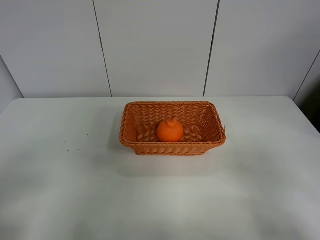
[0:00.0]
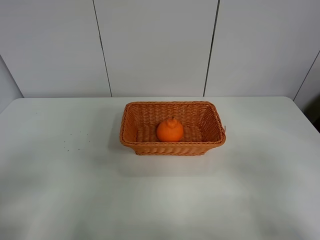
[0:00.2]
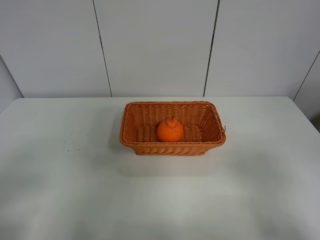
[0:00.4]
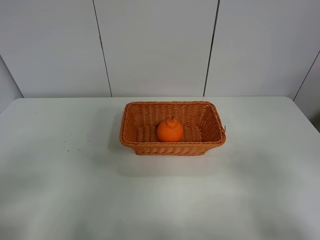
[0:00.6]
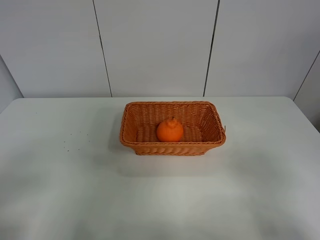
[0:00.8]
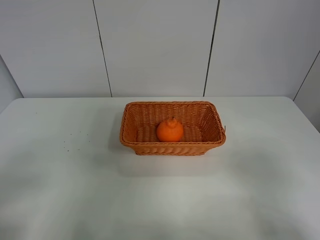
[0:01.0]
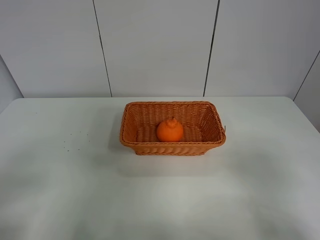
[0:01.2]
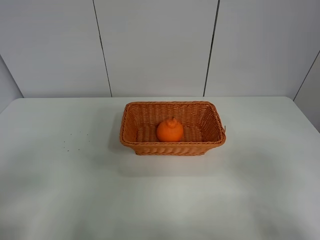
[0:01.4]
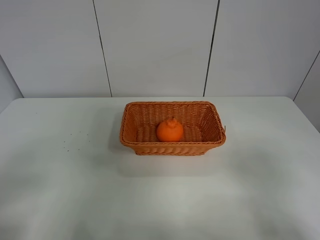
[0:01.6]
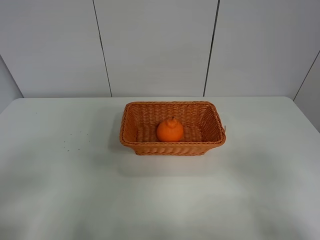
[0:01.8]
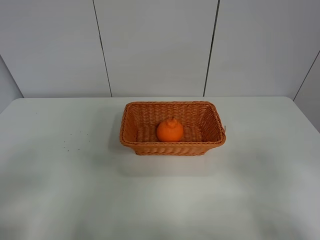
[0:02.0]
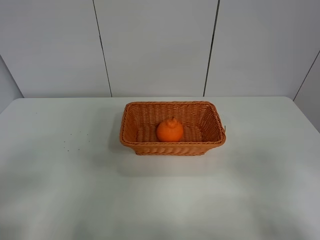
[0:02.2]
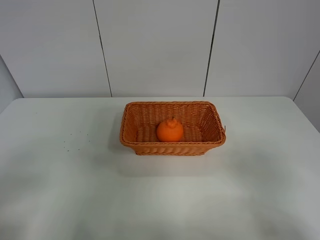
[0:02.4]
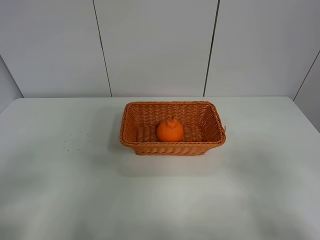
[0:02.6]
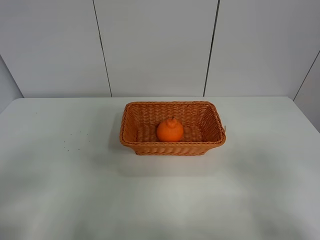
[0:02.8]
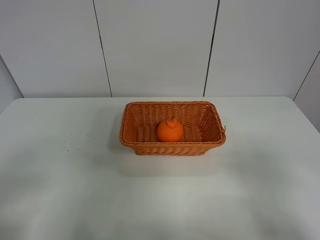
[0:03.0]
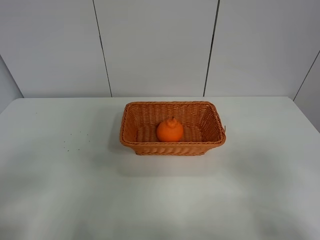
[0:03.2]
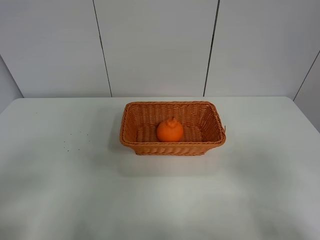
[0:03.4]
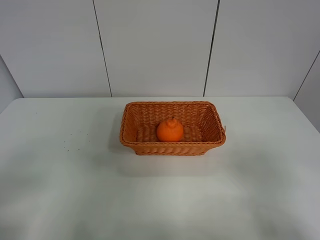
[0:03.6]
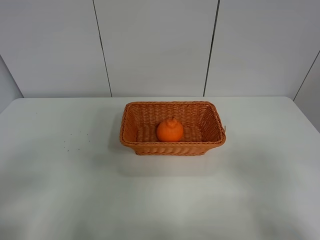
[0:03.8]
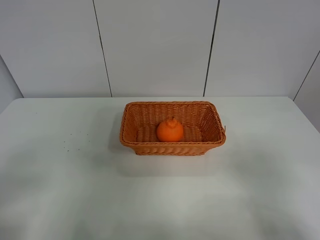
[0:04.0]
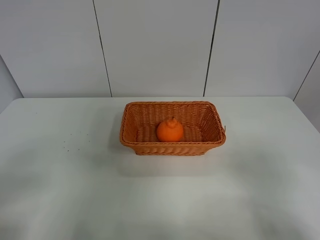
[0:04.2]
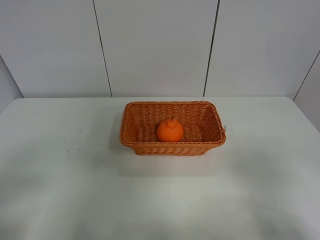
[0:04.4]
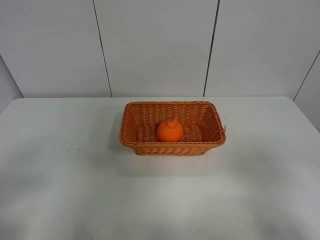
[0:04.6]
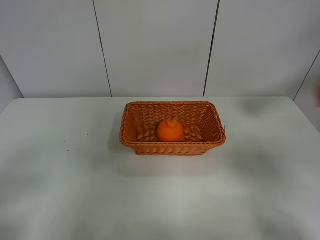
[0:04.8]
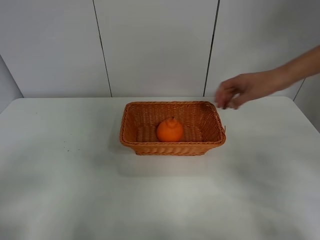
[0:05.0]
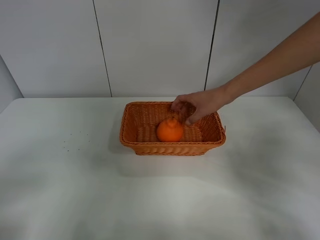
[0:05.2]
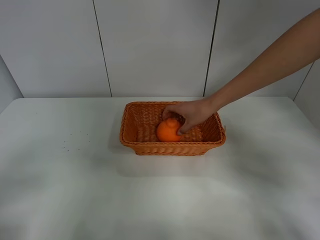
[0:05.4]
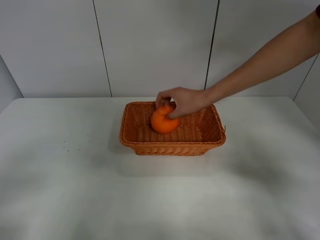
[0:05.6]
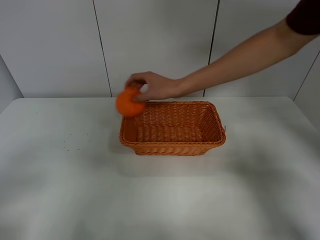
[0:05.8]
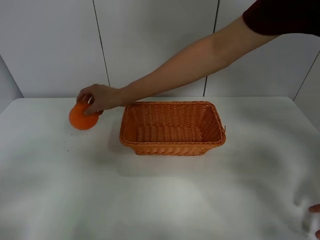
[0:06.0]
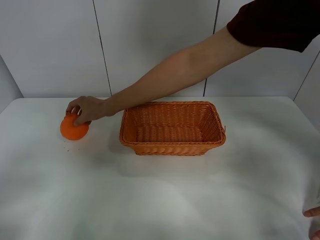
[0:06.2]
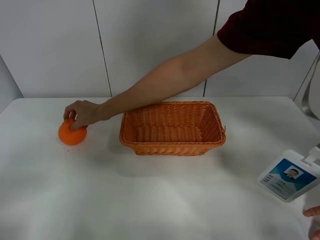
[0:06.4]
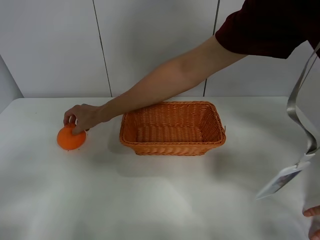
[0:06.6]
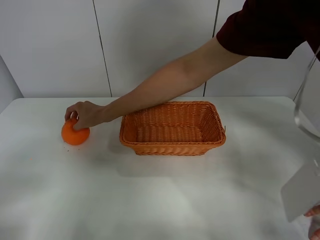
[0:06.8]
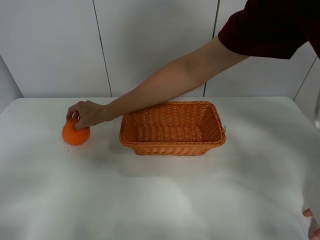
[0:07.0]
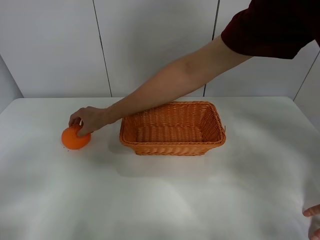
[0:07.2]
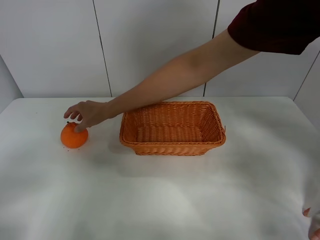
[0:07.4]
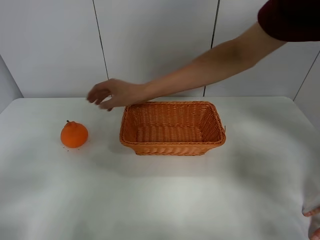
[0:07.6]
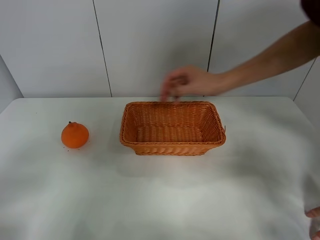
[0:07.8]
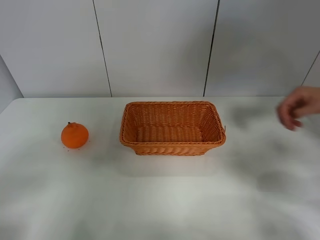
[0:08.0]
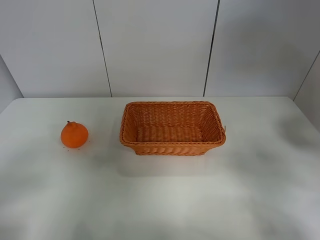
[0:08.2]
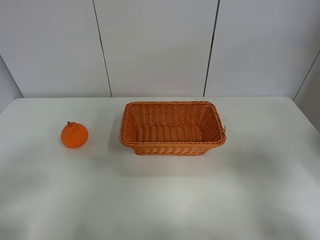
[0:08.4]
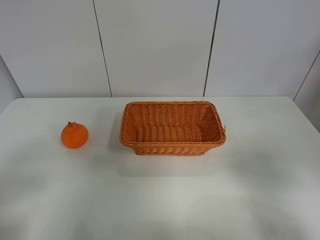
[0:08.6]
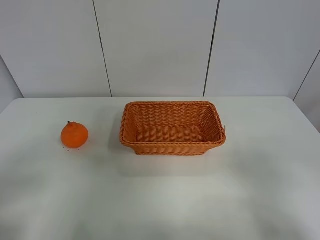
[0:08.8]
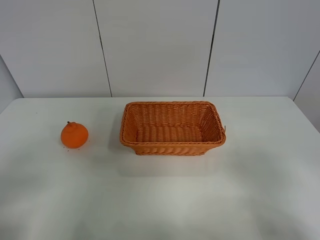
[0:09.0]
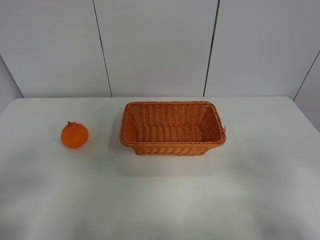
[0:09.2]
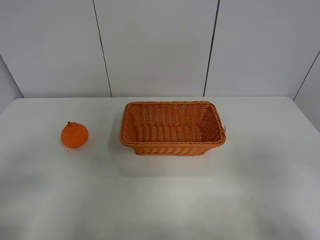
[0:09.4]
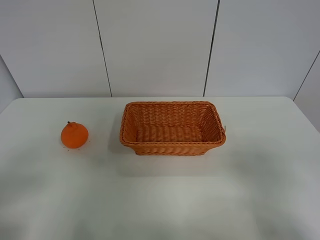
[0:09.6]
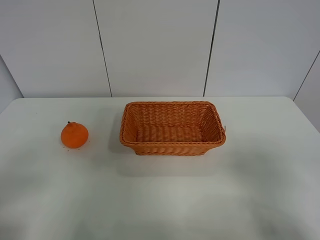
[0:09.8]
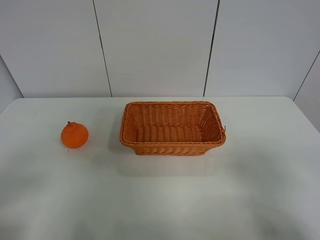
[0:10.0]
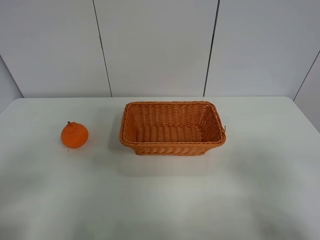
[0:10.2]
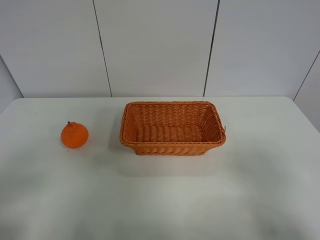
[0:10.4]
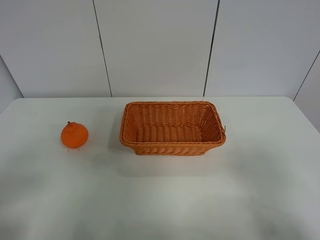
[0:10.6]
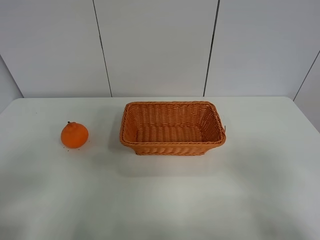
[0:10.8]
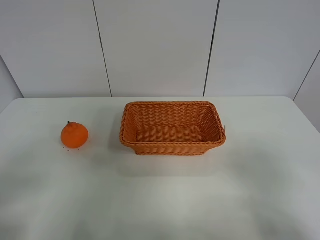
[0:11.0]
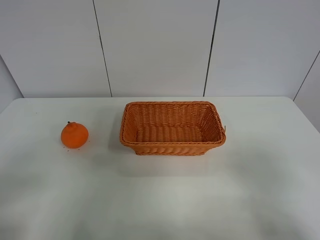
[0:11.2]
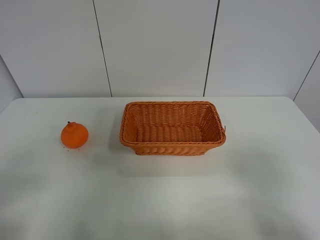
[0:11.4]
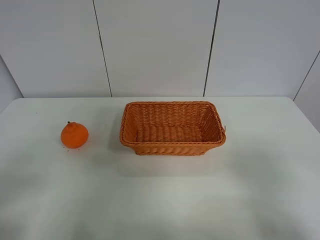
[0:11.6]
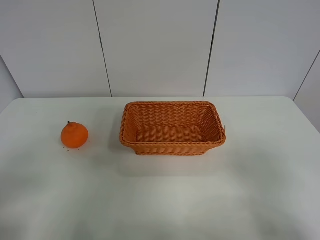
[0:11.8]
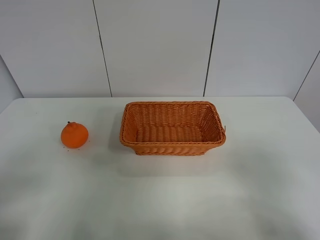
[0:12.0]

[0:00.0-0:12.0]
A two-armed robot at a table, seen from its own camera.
Task of the whole recording: left gripper grabs oranges and puts them in the basket.
0:00.0 to 0:04.4: Both grippers stay about where they are.
0:09.0 to 0:12.0: Both grippers stay put.

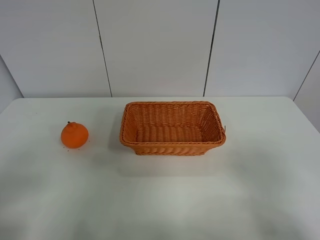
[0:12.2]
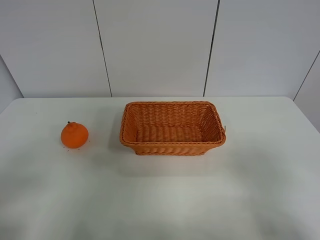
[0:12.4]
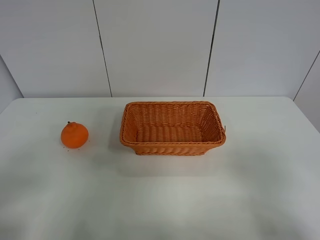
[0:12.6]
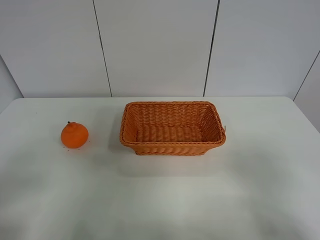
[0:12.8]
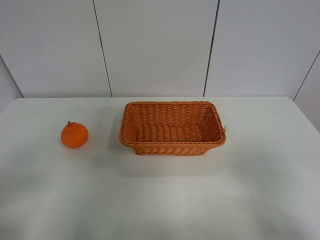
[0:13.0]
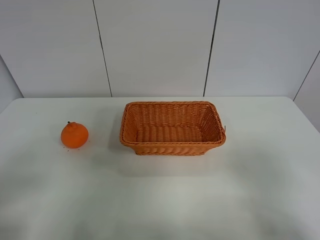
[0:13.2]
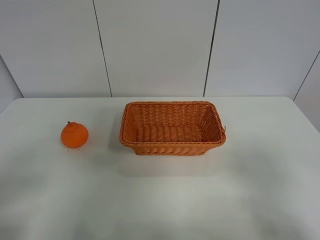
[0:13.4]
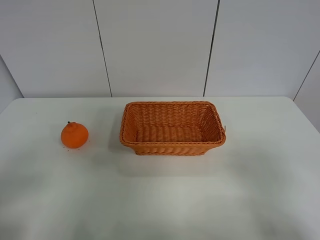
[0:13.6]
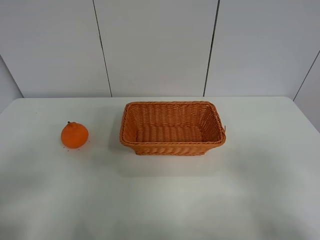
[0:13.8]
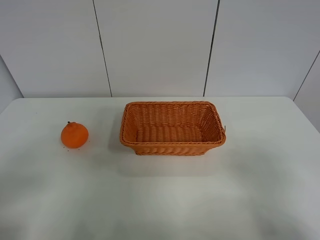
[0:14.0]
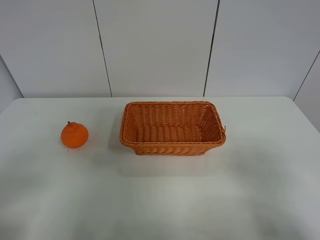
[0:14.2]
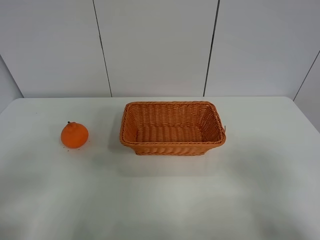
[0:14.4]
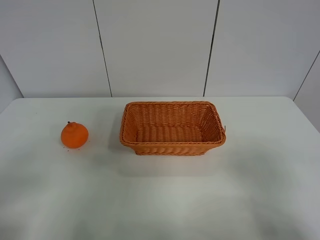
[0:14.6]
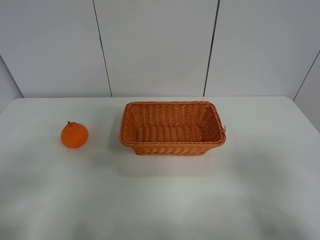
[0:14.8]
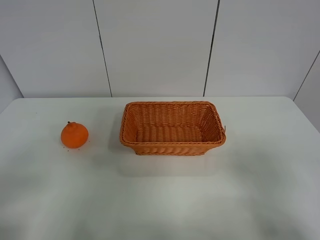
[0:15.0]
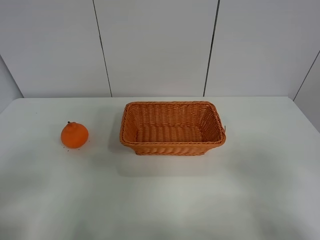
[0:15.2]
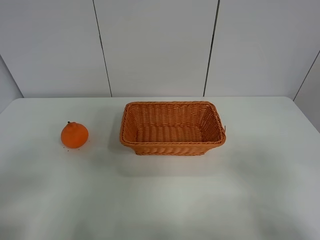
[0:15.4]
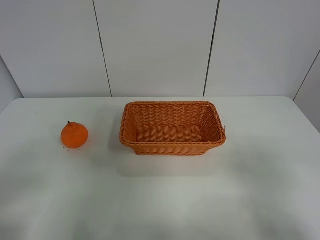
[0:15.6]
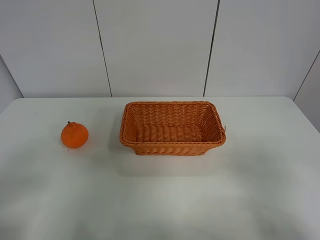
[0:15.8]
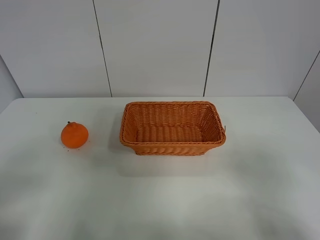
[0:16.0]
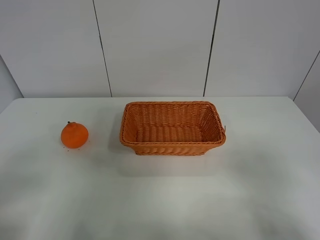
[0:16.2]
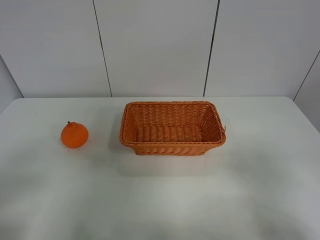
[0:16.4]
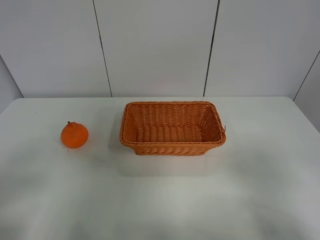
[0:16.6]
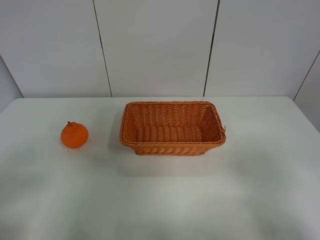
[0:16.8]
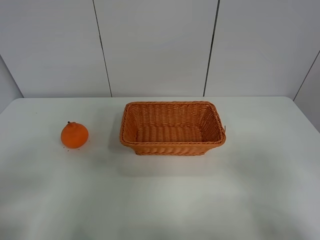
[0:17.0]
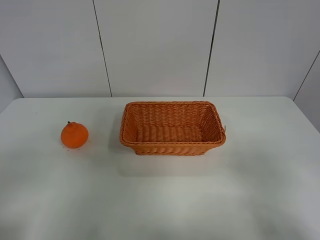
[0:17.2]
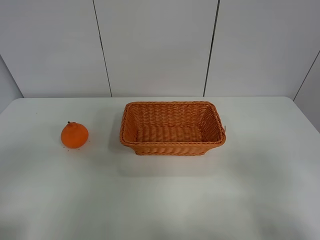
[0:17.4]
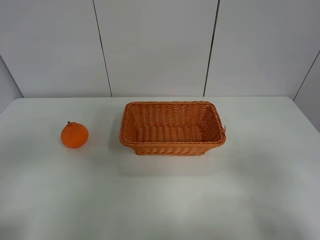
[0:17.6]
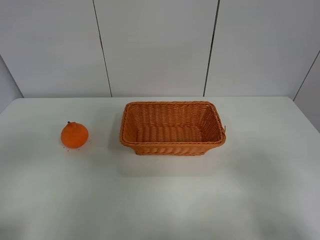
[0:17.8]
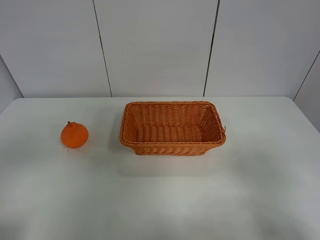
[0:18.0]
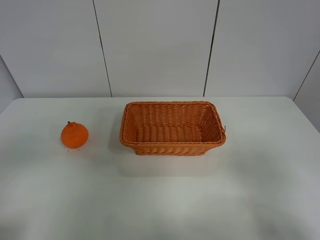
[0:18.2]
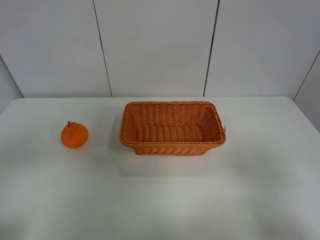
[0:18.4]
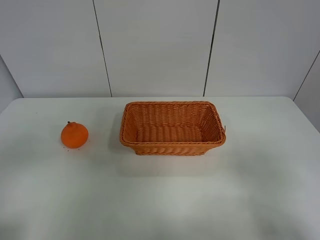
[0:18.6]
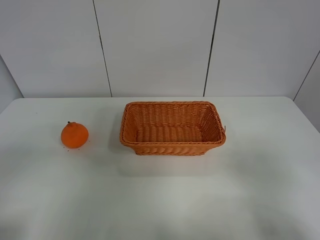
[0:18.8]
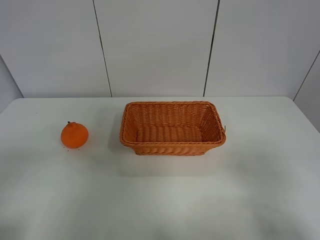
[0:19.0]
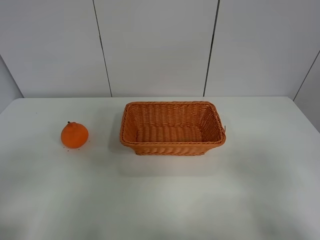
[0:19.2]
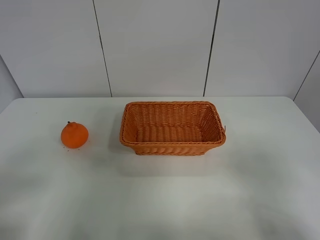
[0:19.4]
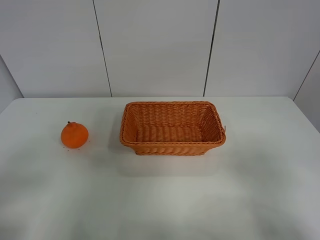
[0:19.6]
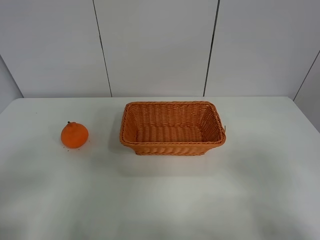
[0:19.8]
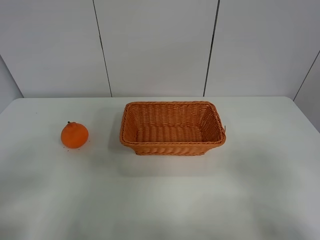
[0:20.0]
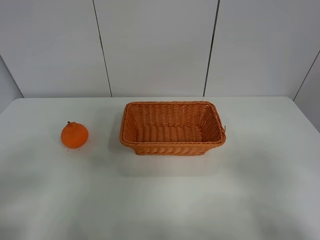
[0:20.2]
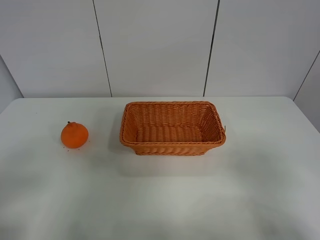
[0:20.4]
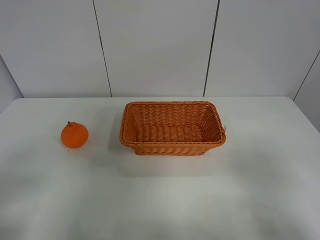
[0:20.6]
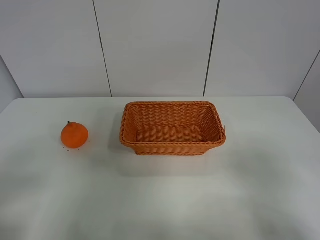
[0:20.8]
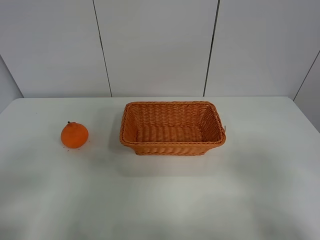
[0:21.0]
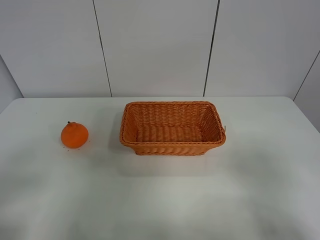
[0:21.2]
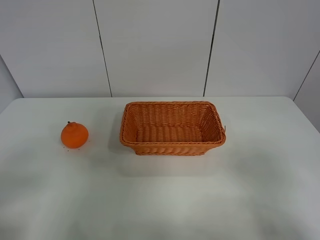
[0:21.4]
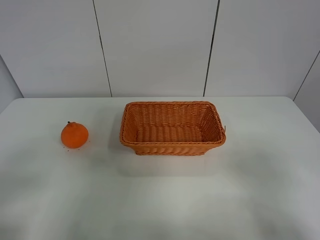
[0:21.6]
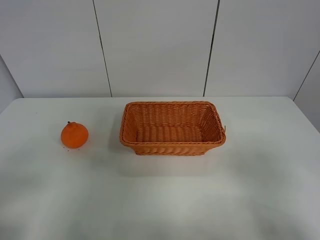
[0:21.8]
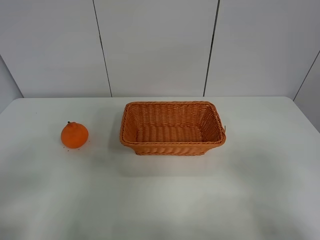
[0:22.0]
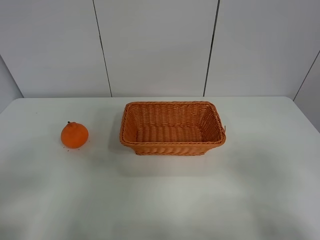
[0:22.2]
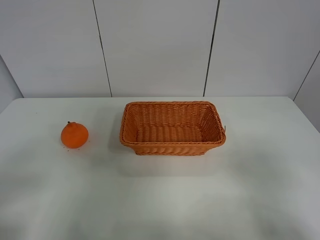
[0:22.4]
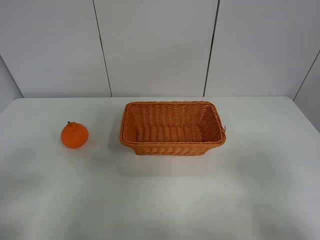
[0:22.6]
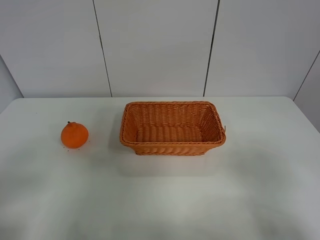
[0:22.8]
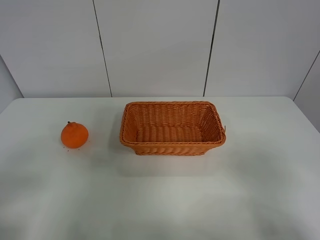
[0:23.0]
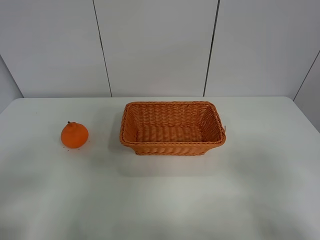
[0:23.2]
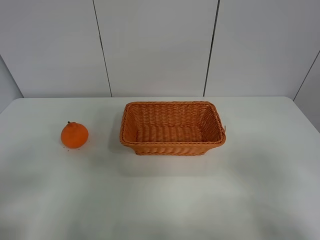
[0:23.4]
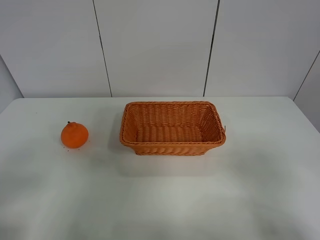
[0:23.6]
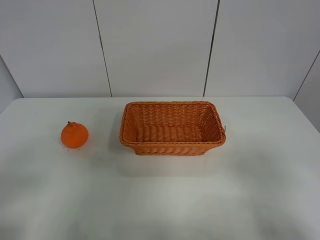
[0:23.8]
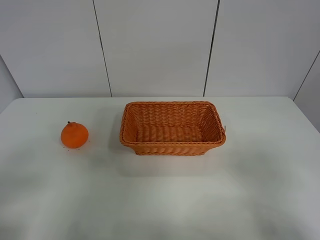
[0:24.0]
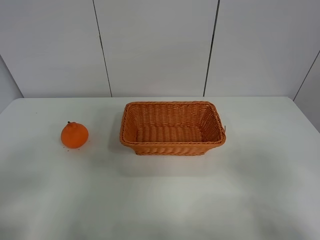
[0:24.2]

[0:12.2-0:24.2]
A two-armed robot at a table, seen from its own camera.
Task of the whole recording: left gripper grabs oranges and puts them in the basket.
0:12.2 to 0:16.6: The two grippers keep their place.
0:19.8 to 0:24.2: Neither gripper changes place.
